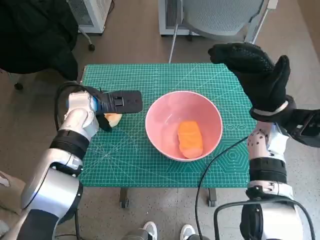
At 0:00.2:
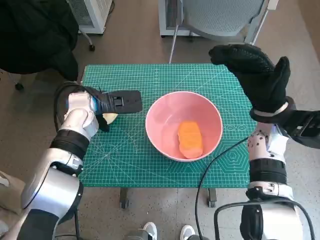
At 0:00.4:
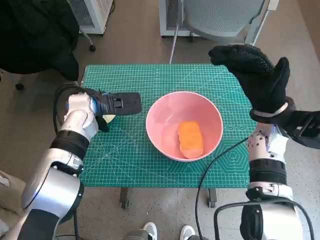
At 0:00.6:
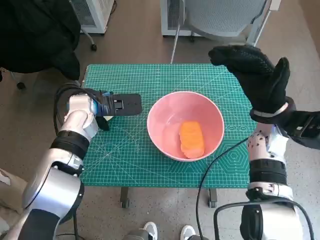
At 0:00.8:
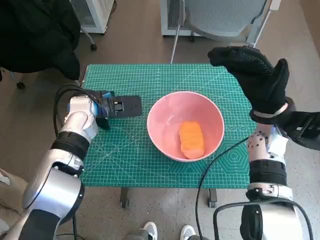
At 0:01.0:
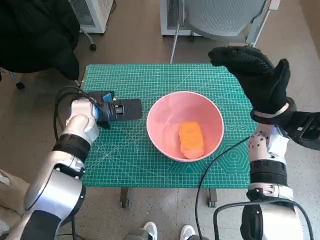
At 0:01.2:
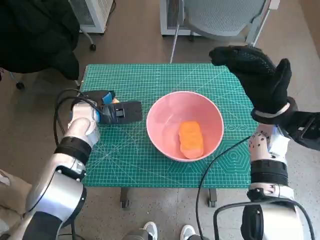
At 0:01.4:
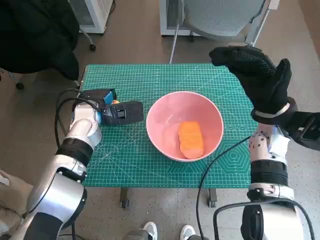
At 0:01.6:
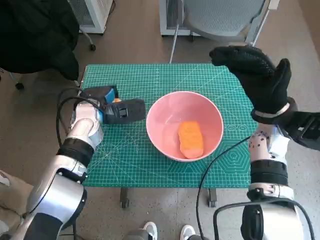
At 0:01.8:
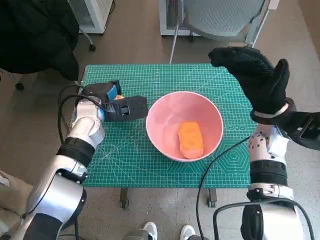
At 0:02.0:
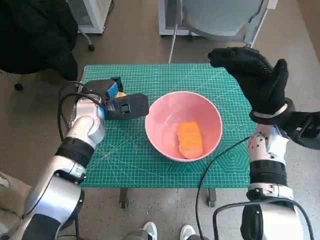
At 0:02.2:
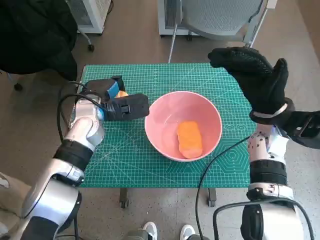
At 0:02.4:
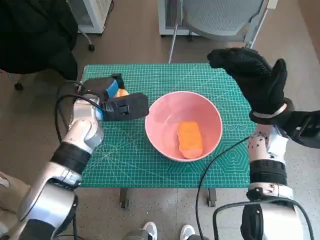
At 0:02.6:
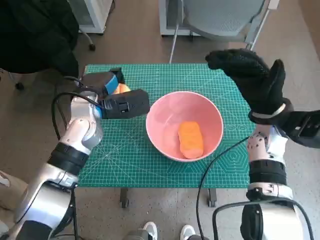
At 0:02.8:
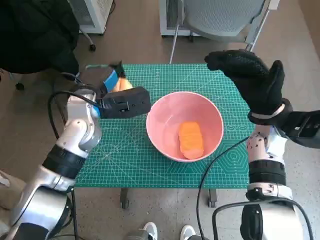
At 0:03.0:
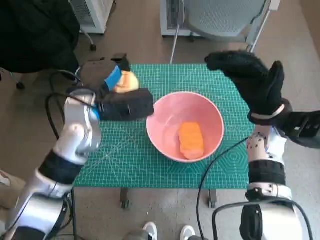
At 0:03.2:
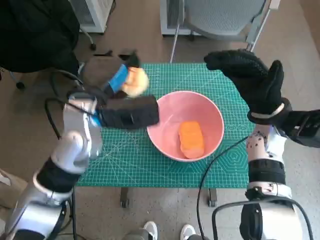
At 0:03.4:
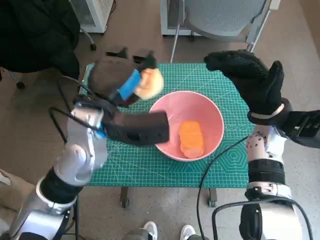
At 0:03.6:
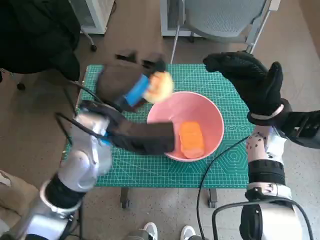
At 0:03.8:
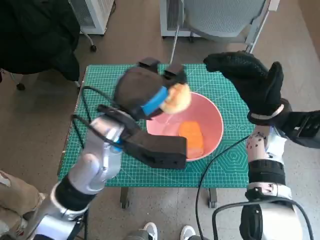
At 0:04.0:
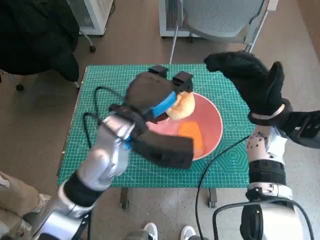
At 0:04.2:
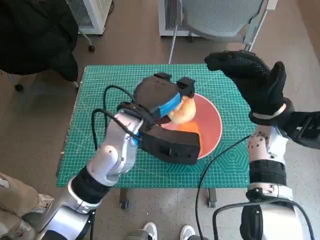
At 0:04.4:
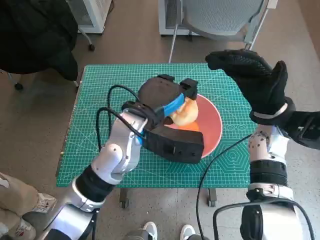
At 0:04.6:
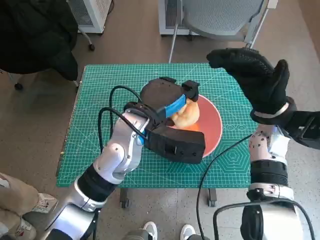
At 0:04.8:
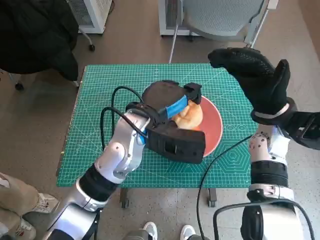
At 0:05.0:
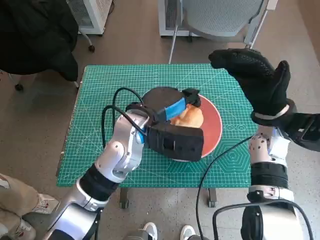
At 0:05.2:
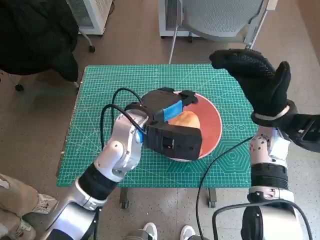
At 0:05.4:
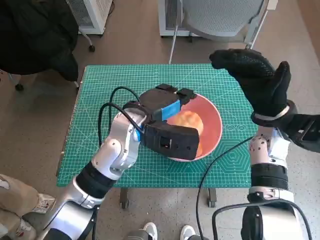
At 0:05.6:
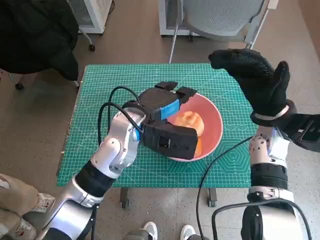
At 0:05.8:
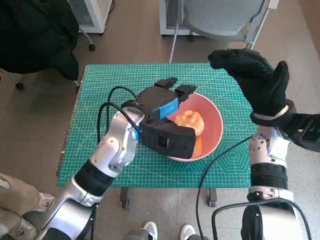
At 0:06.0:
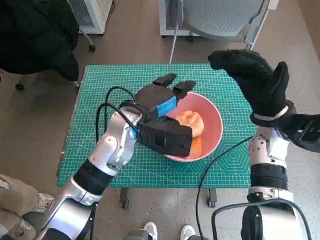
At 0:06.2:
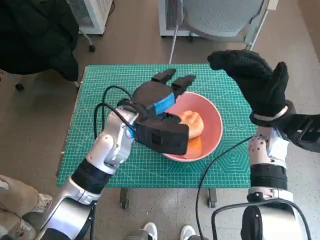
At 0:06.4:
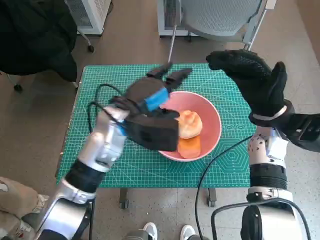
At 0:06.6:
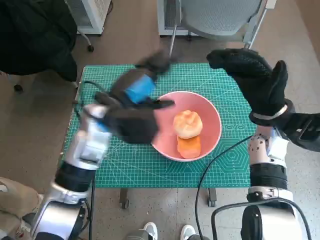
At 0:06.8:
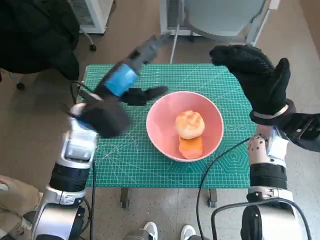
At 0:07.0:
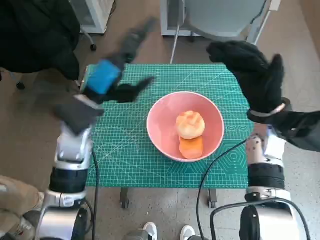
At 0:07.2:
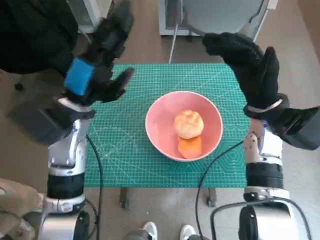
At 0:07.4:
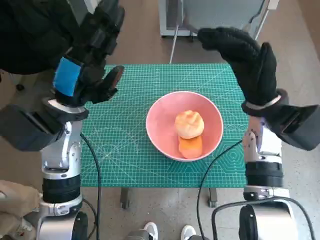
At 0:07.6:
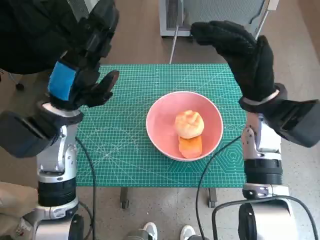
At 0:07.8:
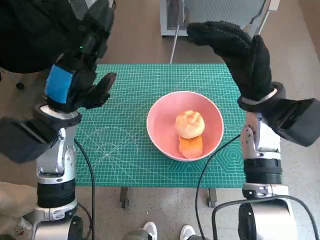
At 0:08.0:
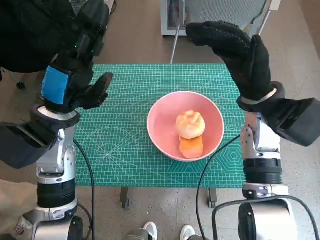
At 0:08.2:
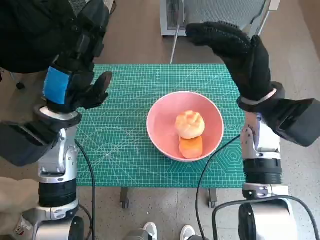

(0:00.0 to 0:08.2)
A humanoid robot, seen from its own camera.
Step, 0:01.4 - 0:05.8: Place the round bread in pink bowl with left hand.
0:00.0 - 0:01.6: The hands make only small movements.
0:01.6 - 0:03.2: The left hand shifts approximately 10 cm upward and backward.
0:03.2 - 0:05.0: The left hand shifts some 10 cm to the right.
0:05.0 - 0:06.6: The left hand is displaced to the left by roughly 5 cm.
0:06.6 - 0:08.2: The right hand changes place by some 5 cm. Meanwhile the left hand moves to the left, some 5 cm.
